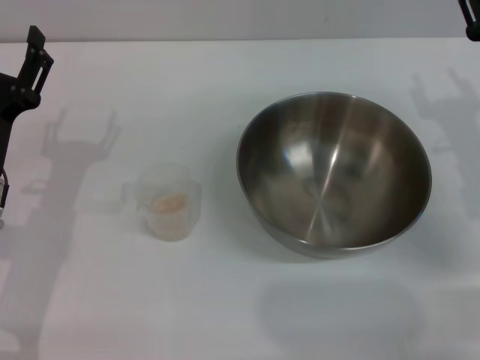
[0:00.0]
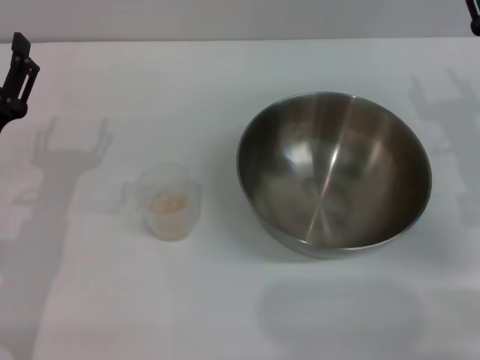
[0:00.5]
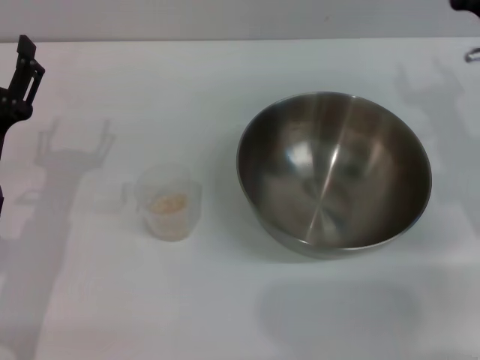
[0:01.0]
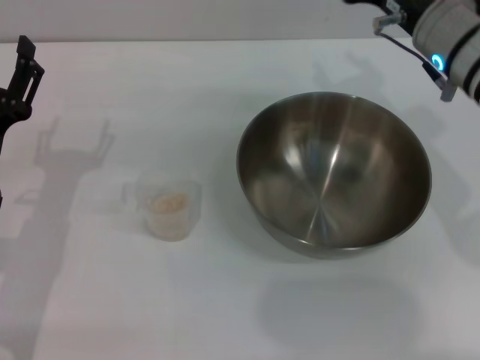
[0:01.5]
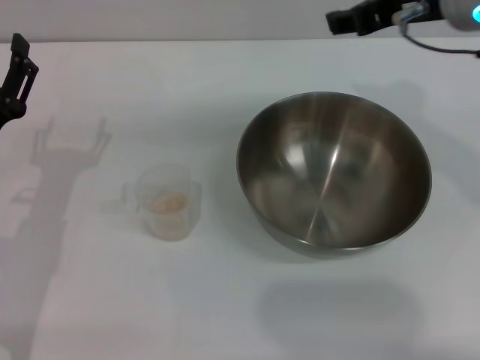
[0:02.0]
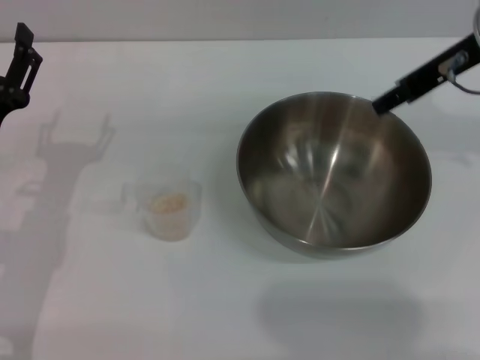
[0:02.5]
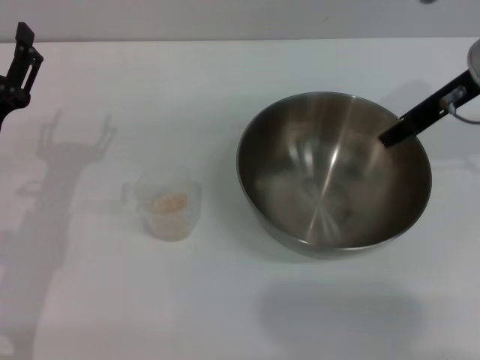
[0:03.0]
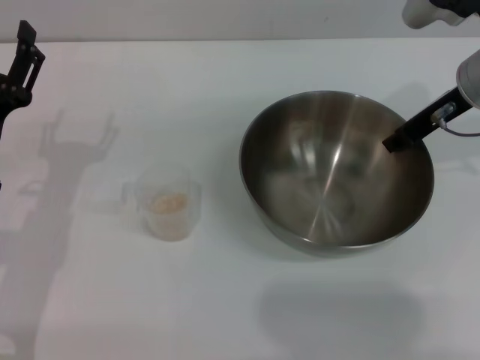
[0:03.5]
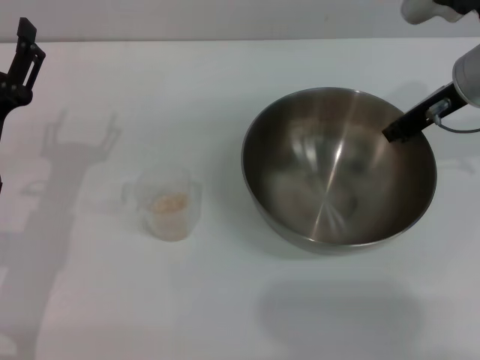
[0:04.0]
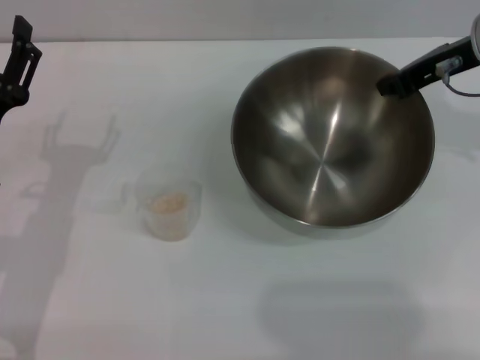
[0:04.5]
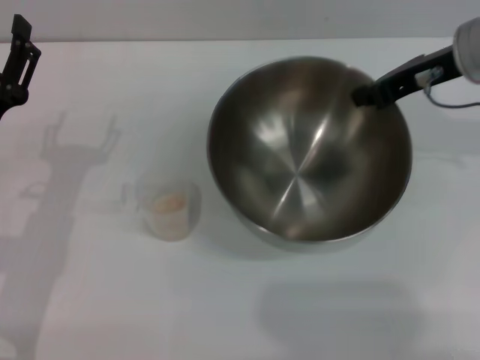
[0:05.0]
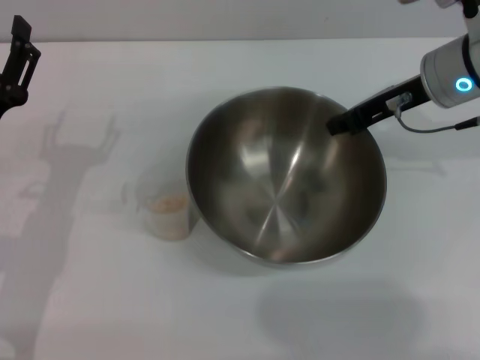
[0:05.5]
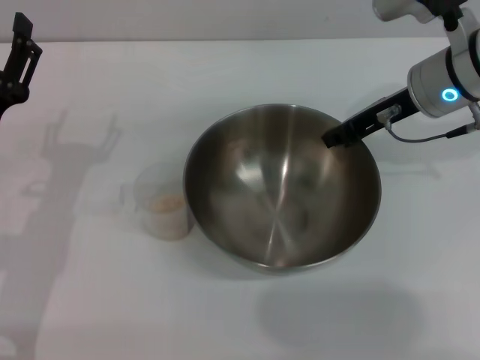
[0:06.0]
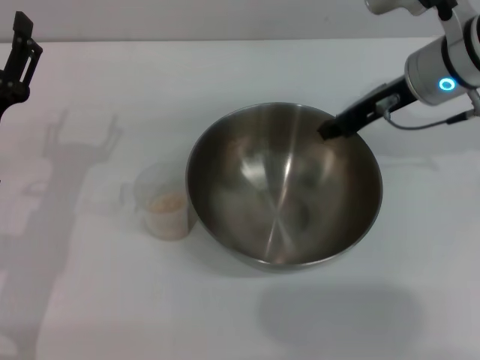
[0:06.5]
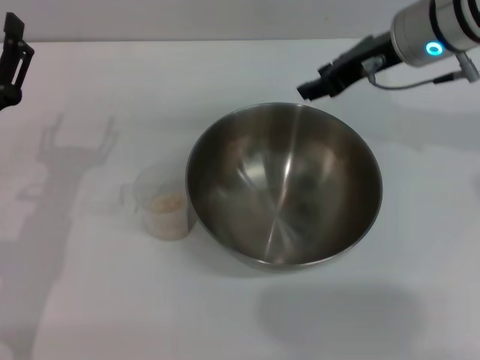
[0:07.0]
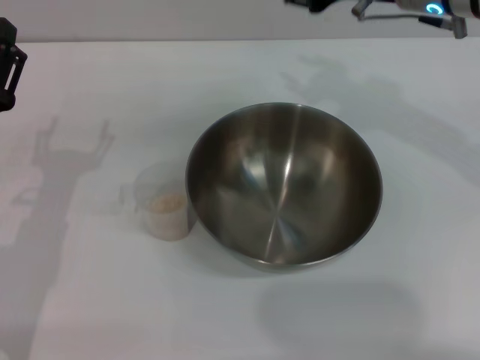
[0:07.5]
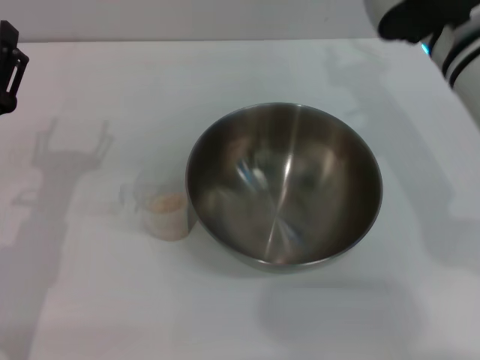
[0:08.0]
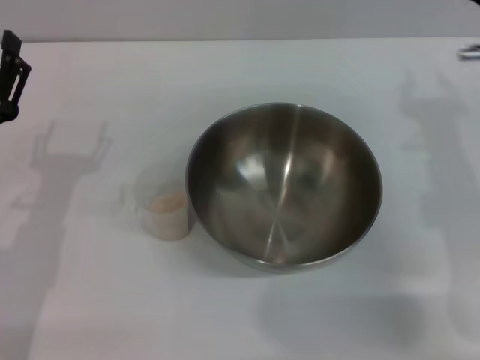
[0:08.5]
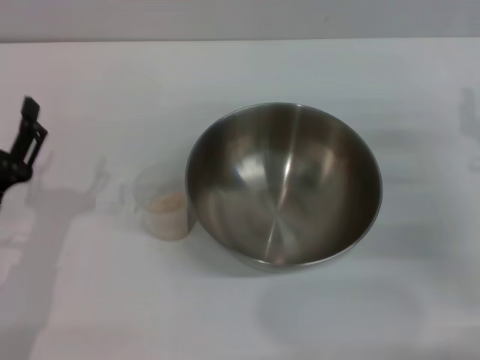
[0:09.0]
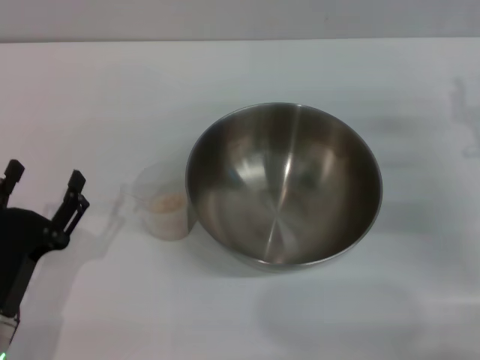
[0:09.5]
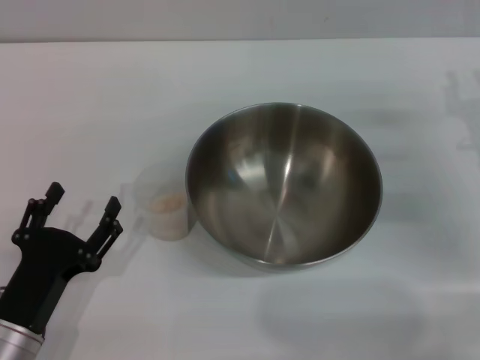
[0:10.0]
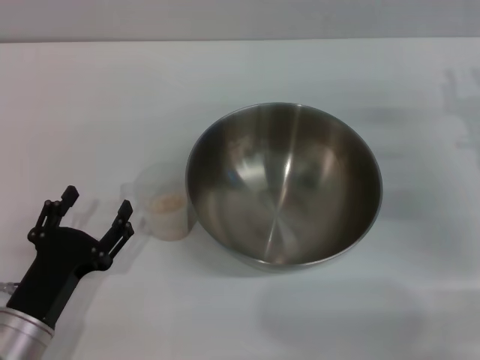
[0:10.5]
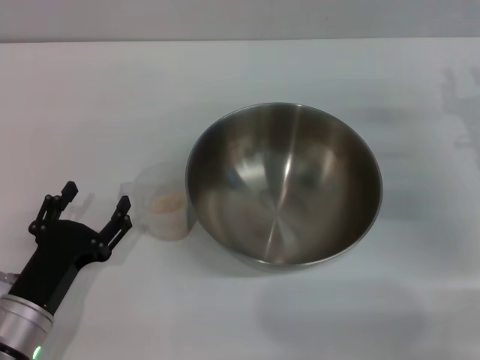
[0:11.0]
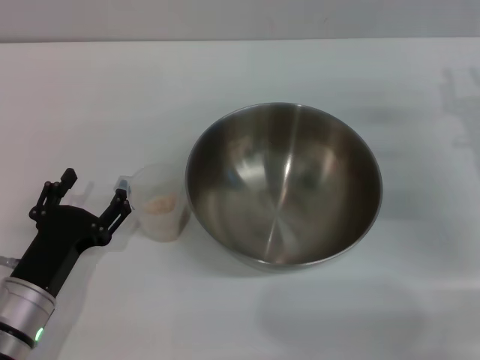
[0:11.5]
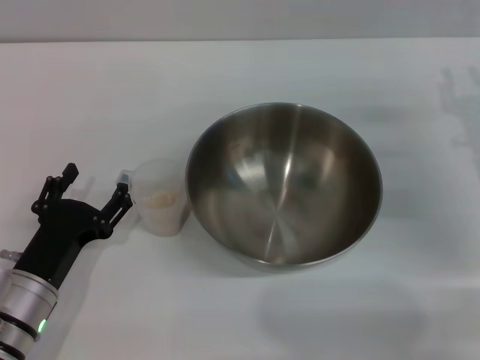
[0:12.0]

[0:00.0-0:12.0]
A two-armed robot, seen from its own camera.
Task of the whole recording: Place the bowl in the middle of the table with one hand and pour the rice from the grain cup into it with the other hand.
Step, 0:00.0 to 0:04.0: Pick up the bowl with the right gripper.
Step, 0:04.5 to 0:07.0: Place the bowl in the center of view with the right gripper.
0:00.0 to 0:02.0: The right gripper heads upward and to the left, covering approximately 20 cm.
0:02.0 to 0:04.0: The right gripper travels downward and to the right by approximately 10 cm, and closes up.
0:06.0 to 0:08.0: The right gripper changes place by some 5 cm, and opens its fingers.
0:08.0 to 0:10.0: The right gripper travels to the right and downward by roughly 20 cm; the left gripper heads backward and downward, covering some 10 cm.
0:10.0 to 0:12.0: The grippers make only small movements.

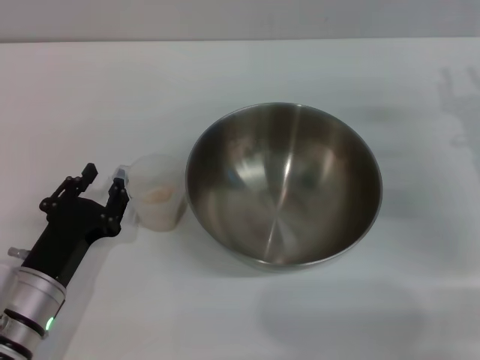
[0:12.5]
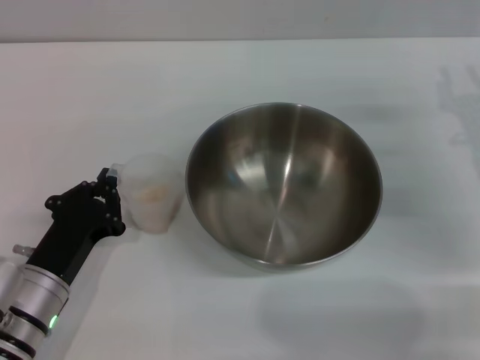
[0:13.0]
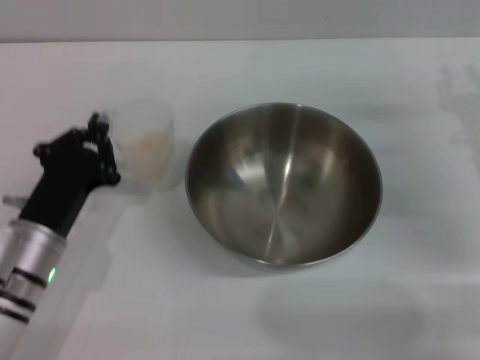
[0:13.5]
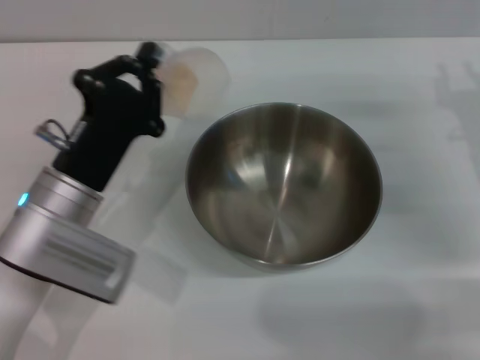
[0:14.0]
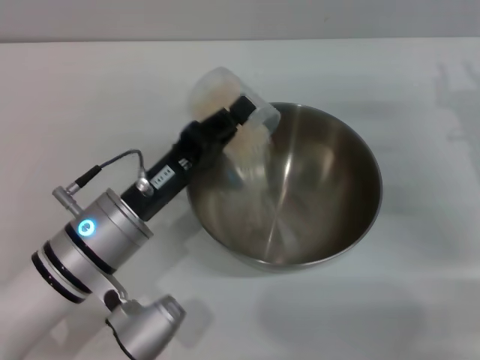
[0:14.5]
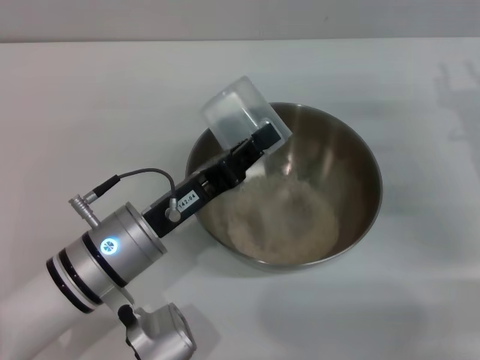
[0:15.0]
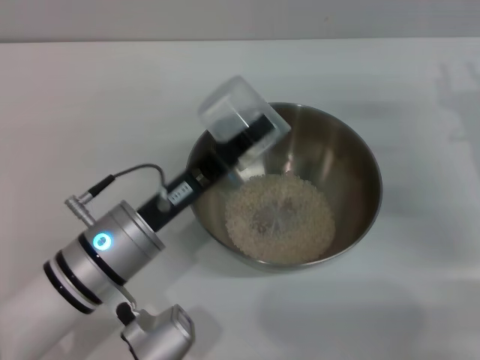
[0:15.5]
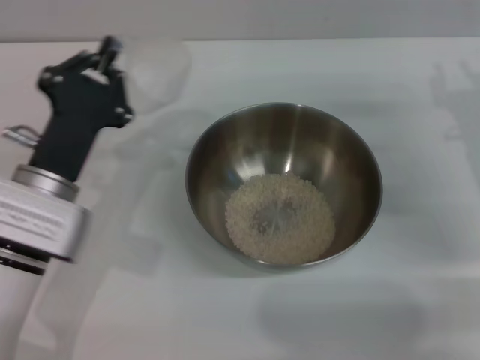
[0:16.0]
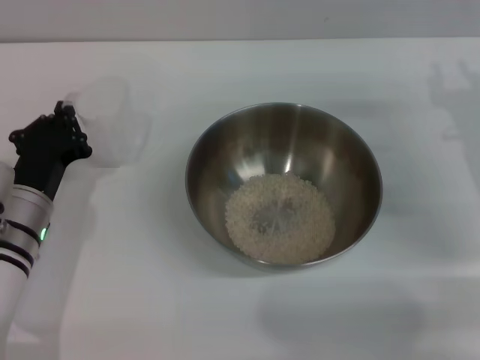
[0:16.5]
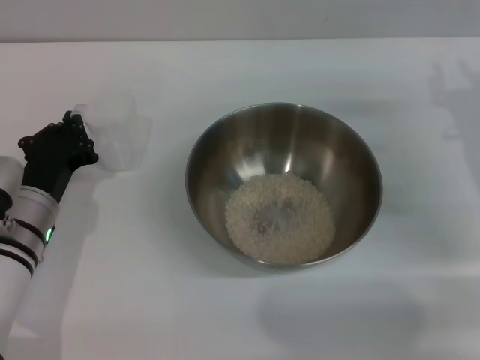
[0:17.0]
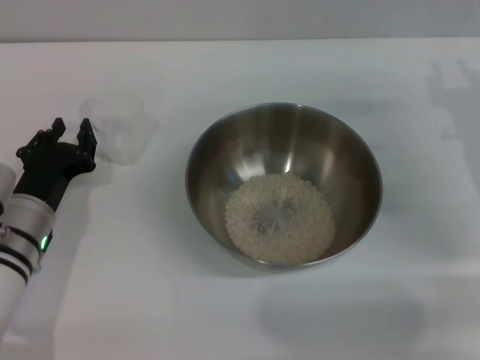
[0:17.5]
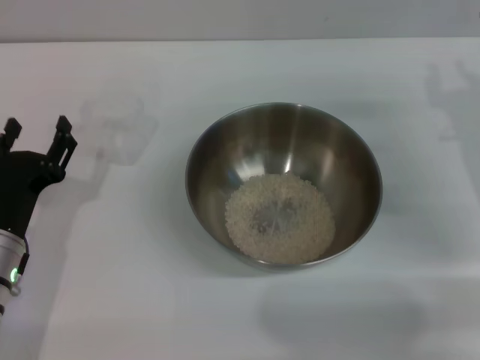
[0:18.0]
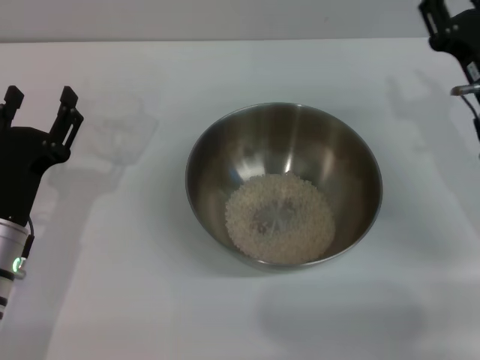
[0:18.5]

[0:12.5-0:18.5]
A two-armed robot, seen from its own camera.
Task of the whole recording: Place the bowl in the middle of the table with one hand and pour the rice from the grain cup into it with the other hand.
Step, 0:13.5 to 0:15.0: Pour the rice from the cup into the bowl with the left gripper.
Step, 0:16.0 to 0:17.5: Place the cup on the table with the left gripper.
0:12.5 to 0:14.5: The left gripper travels to the right and upward by about 10 cm, and closes up.
0:14.5 to 0:16.5: The left gripper travels to the left by approximately 10 cm.
0:16.5 to 0:18.5: The left gripper opens its fingers.

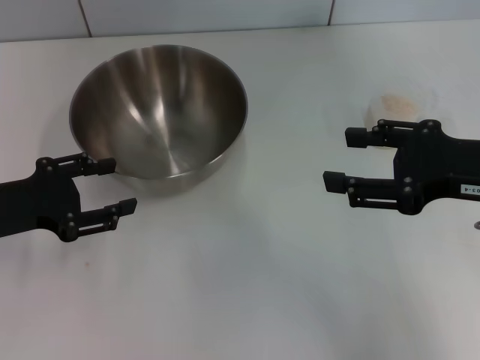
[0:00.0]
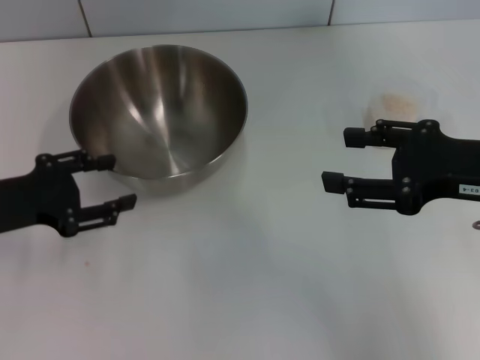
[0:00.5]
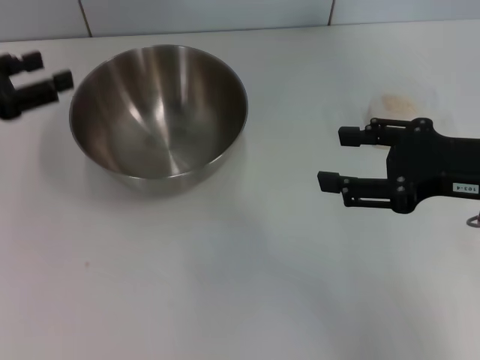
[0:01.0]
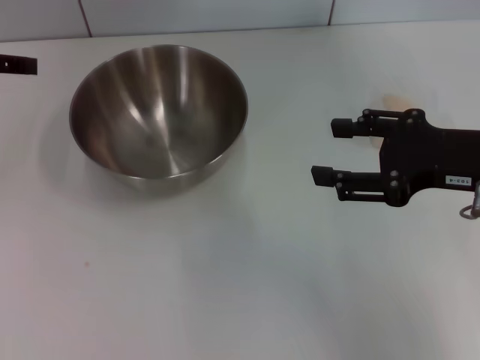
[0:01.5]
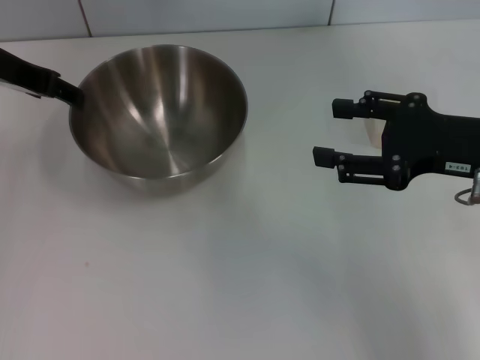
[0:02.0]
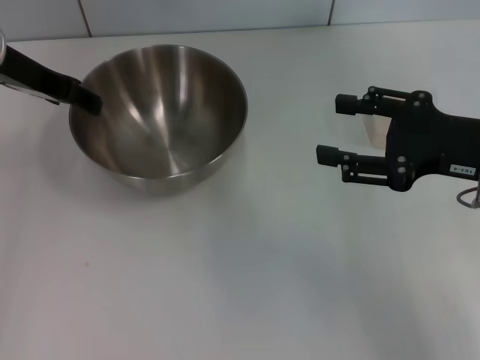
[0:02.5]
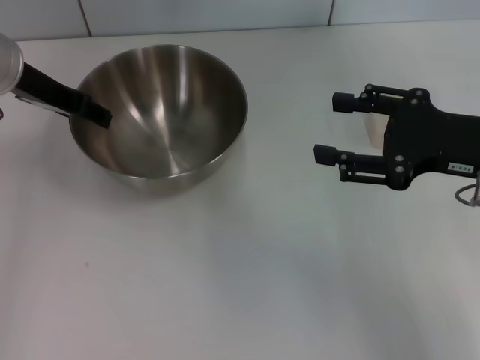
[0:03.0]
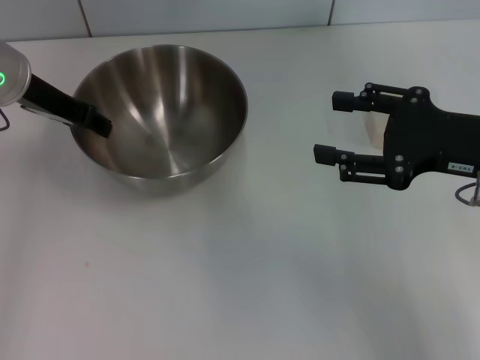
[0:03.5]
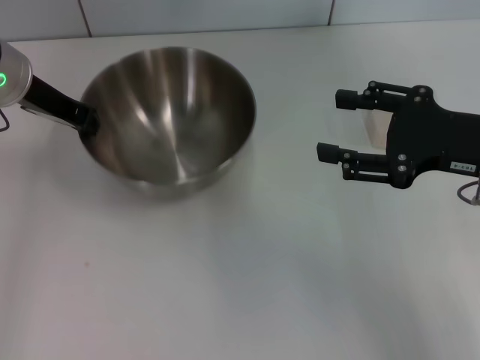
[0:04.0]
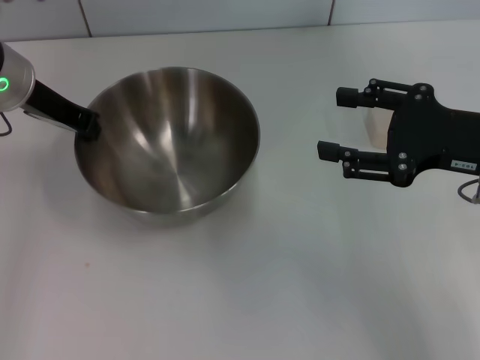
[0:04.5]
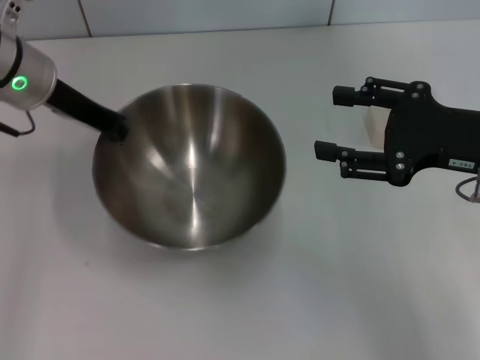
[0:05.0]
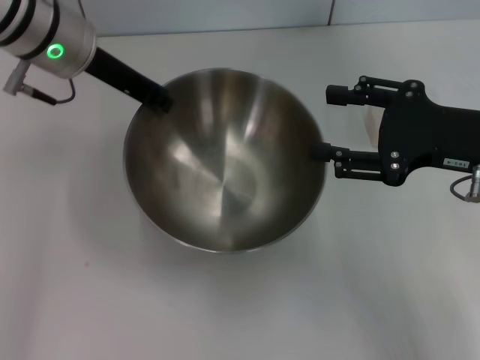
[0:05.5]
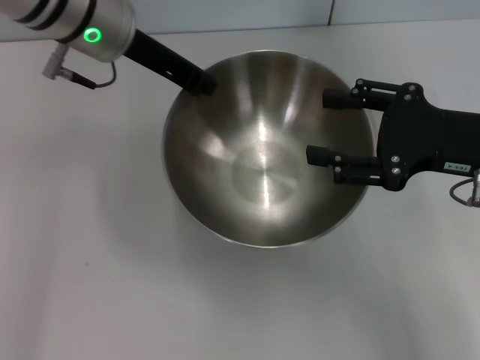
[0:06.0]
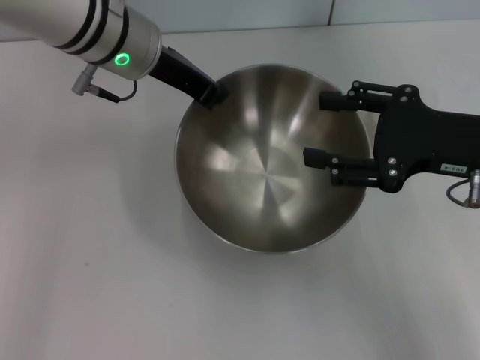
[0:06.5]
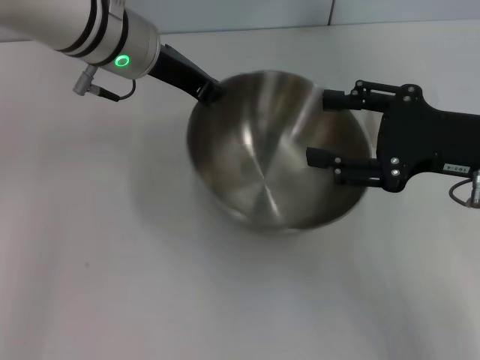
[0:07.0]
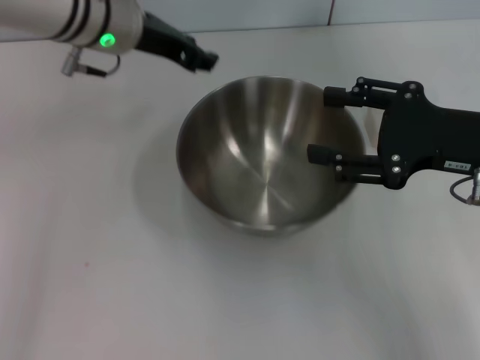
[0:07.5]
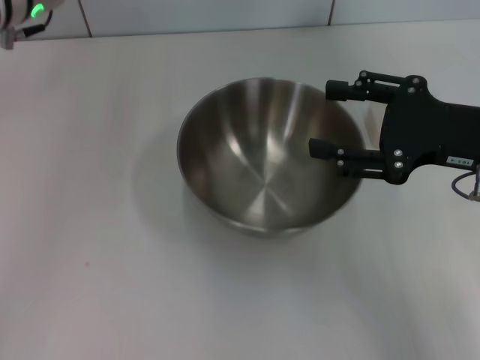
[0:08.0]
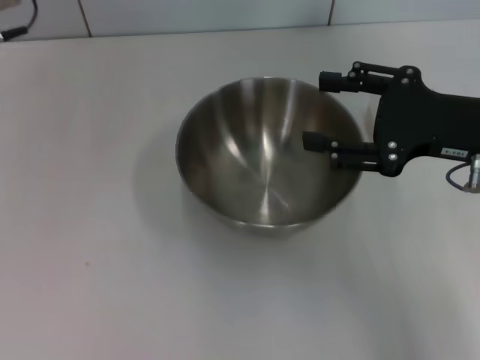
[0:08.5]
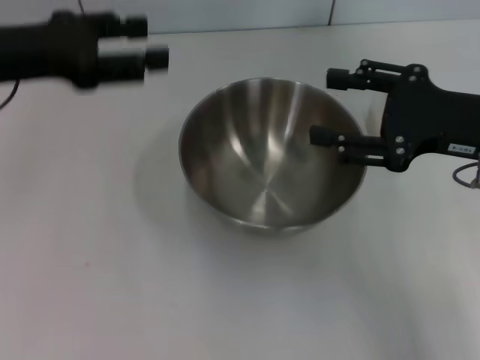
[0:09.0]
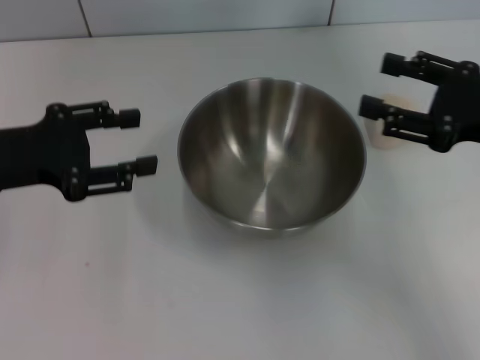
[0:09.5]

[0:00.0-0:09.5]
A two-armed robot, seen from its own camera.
Task of the whole recording: Place the bowl in the middle of the table with one hand and pour the rice from the grain cup into it with the other hand.
Step, 0:00.0 to 0:04.5: Pick up the bowl with the left gripper.
Step, 0:05.0 to 0:07.5: Place the bowl in the center of view with the left gripper.
0:00.0 to 0:02.0: The left gripper heads upward and forward, covering about 15 cm.
0:02.0 to 0:04.0: The left gripper shifts by some 5 cm, and closes its fingers.
0:04.0 to 0:05.5: The left gripper moves to the right, roughly 5 cm, and closes its fingers.
0:05.5 to 0:07.5: The left gripper opens up.
0:07.5 to 0:09.5: The left gripper travels to the left and backward by some 20 cm, and opens up.
